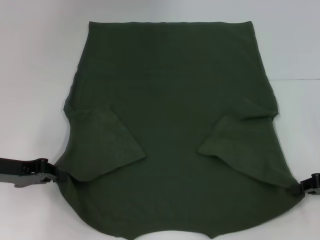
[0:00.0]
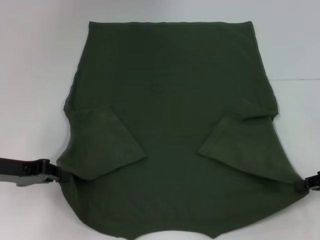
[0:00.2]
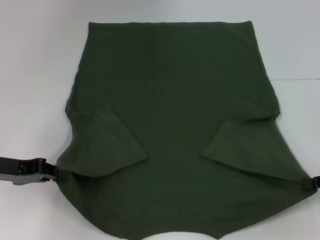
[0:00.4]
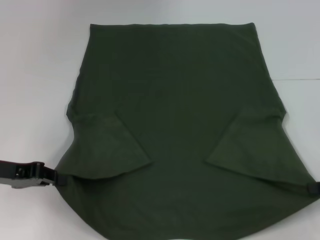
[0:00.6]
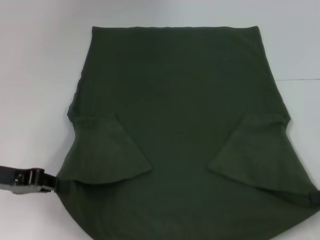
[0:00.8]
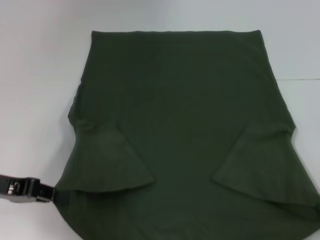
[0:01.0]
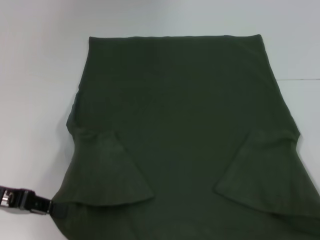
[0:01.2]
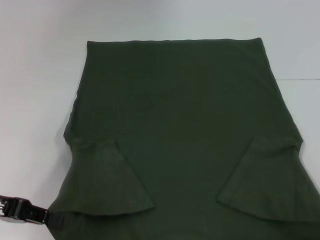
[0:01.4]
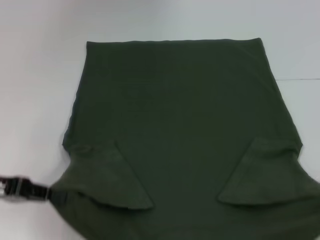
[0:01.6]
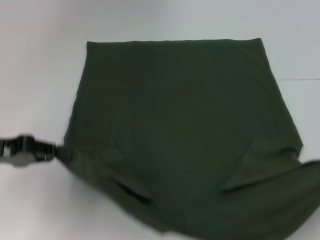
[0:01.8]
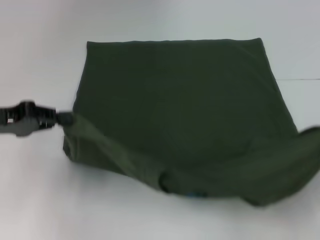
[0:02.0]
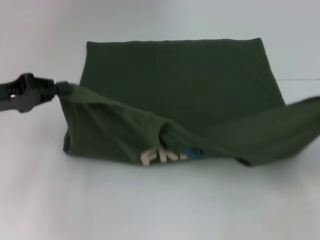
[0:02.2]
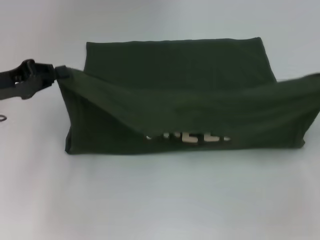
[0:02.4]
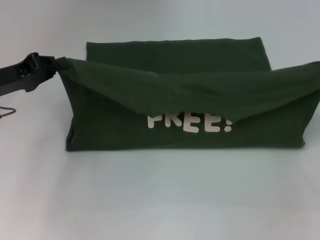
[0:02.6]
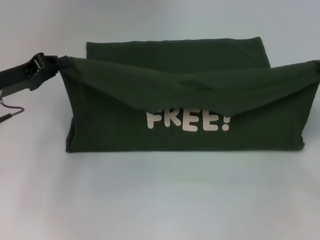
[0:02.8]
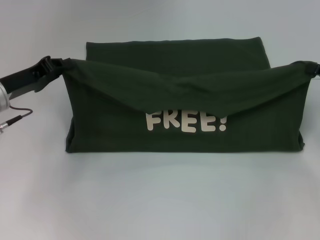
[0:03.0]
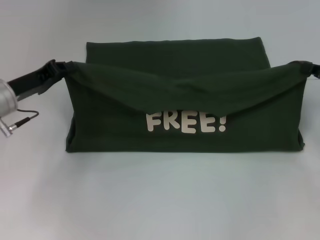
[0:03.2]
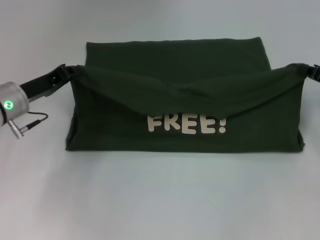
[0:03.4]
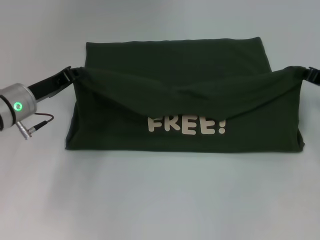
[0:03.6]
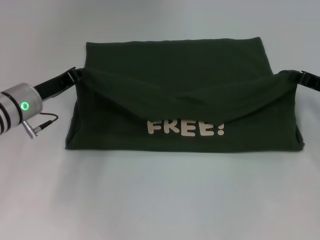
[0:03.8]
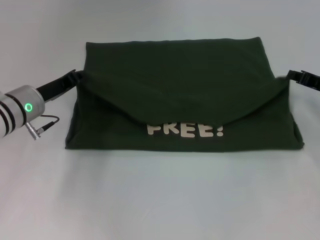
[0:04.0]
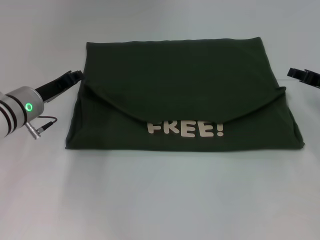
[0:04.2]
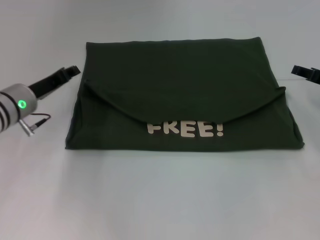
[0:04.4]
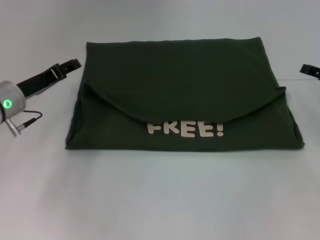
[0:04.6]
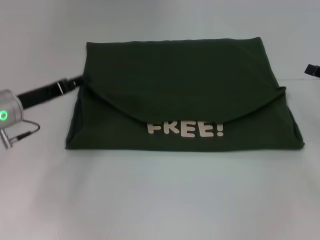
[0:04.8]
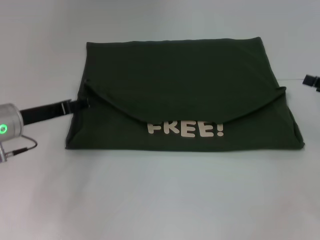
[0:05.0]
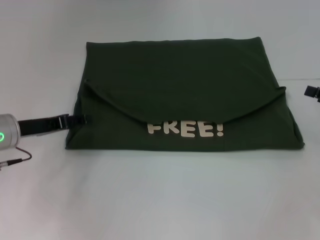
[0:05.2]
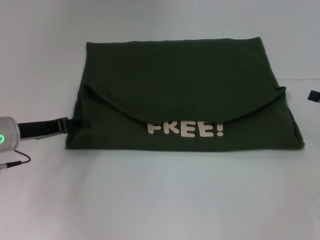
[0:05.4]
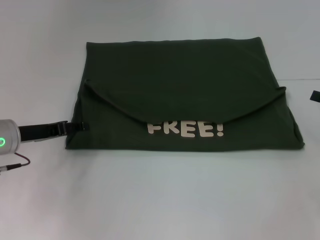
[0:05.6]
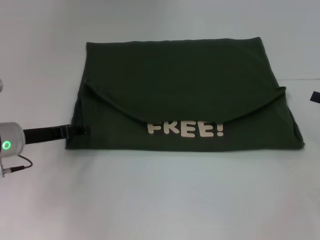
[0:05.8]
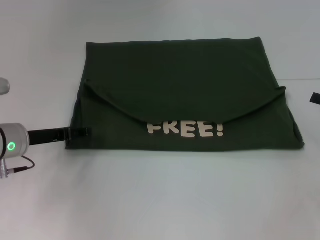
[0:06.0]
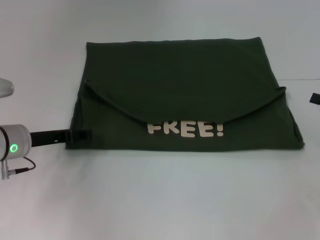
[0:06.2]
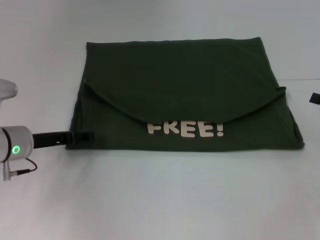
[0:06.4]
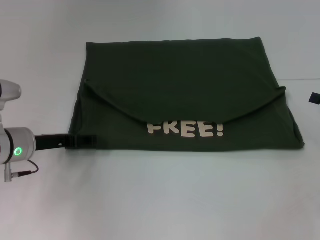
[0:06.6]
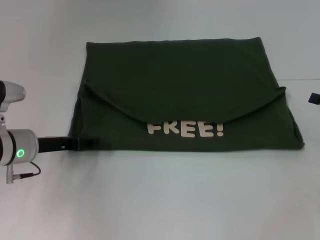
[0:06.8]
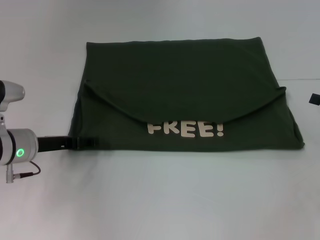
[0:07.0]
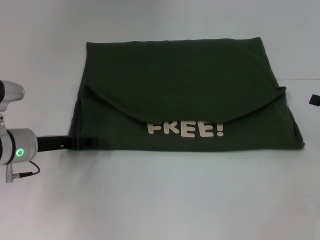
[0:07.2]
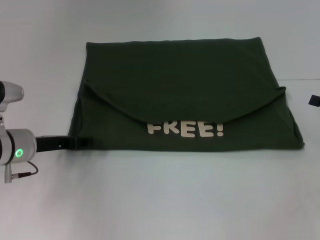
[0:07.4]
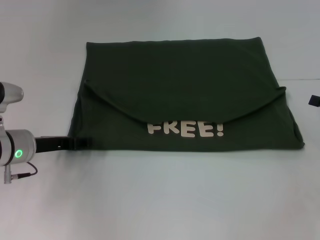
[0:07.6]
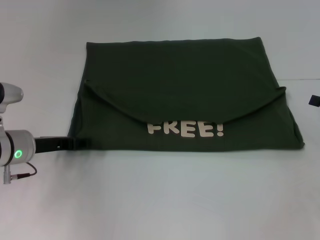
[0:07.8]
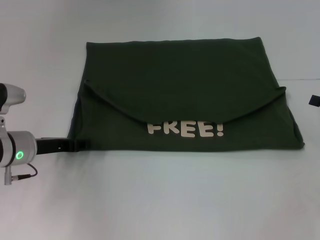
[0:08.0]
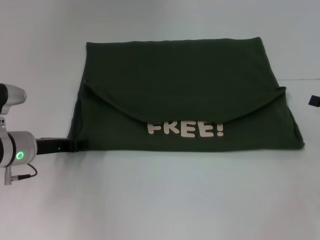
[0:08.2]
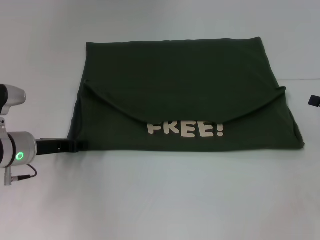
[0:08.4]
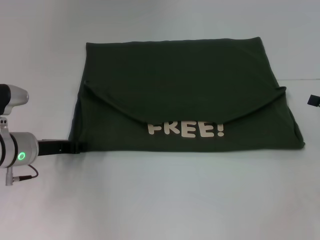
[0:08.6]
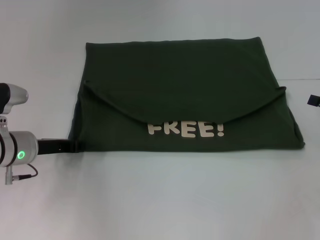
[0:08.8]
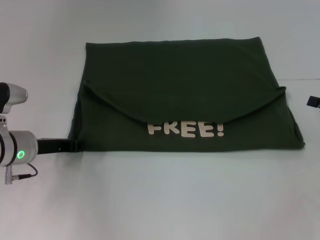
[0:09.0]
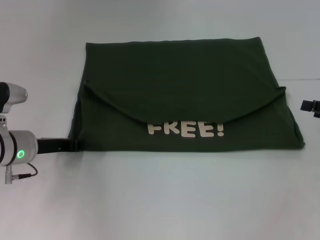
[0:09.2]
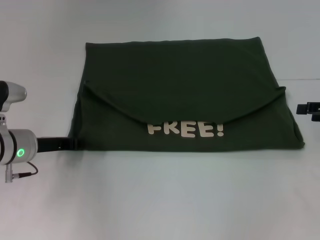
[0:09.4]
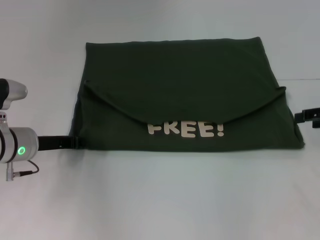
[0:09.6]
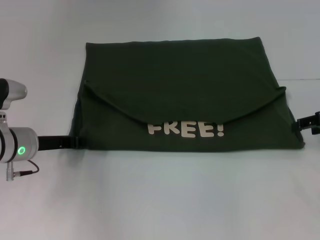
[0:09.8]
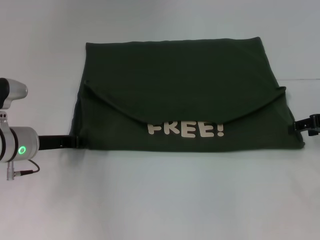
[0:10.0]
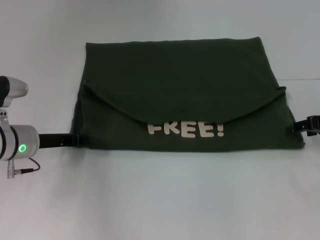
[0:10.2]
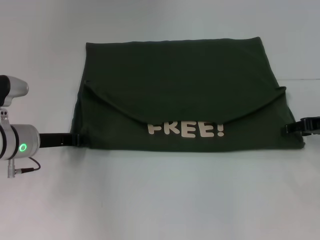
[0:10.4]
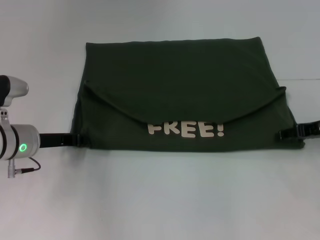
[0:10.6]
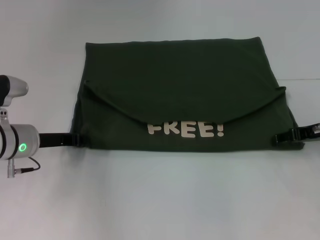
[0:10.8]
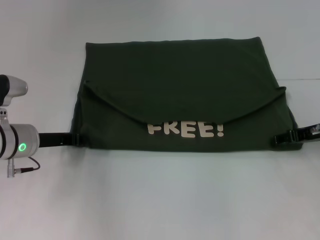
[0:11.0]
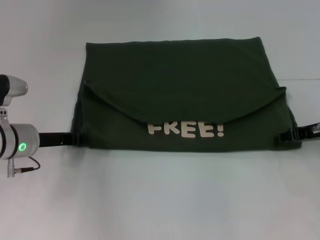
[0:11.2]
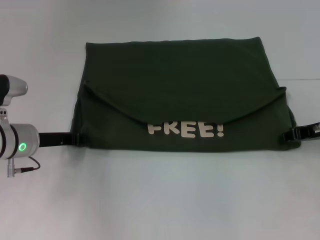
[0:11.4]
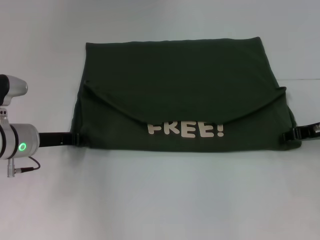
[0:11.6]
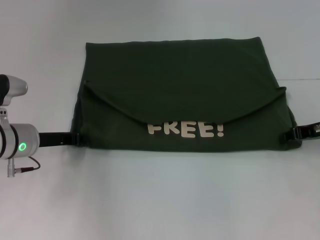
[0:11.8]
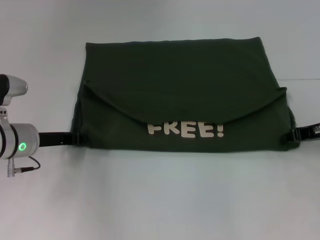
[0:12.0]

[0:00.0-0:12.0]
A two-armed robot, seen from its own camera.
Step, 0:00.0 to 0:04.0: Fold the clothes with your left hand.
Step, 0:00.0 to 0:04.0: Fold the clothes with your right hand.
0:00.0 to 0:01.6: The left gripper moves approximately 5 cm, while the right gripper goes roughly 10 cm backward and to the right.
0:01.6 to 0:03.0: The two grippers go about 10 cm forward.
0:03.0 to 0:04.4: The left gripper changes place by roughly 5 cm; the right gripper opens.
0:04.4 to 0:06.0: The left gripper opens.
0:06.0 to 0:07.6: There are only small adjustments of the grippers.
0:07.6 to 0:09.0: The left gripper closes.
0:09.0 to 0:10.4: The right gripper is displaced forward and to the left by approximately 10 cm.
0:10.4 to 0:12.0: The right gripper closes its fingers.

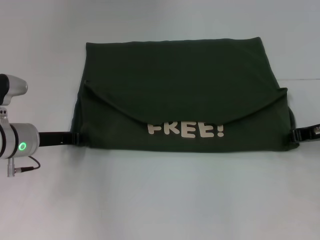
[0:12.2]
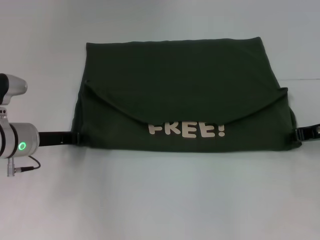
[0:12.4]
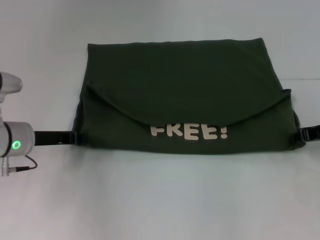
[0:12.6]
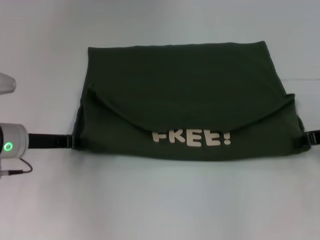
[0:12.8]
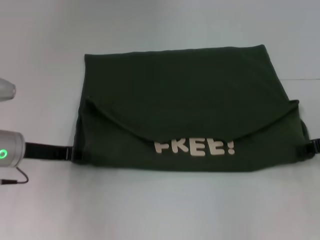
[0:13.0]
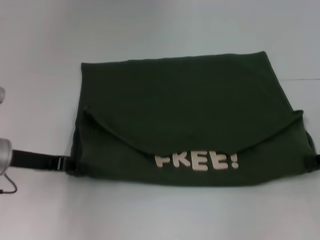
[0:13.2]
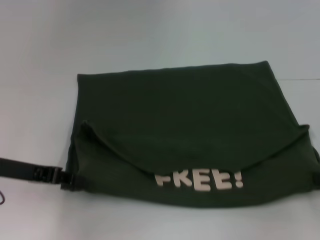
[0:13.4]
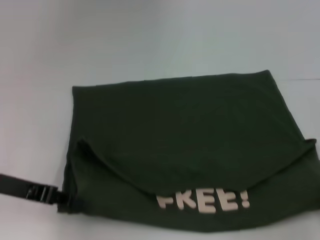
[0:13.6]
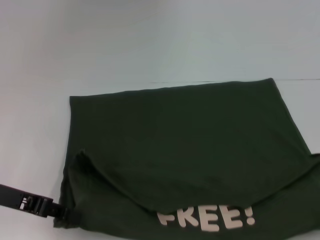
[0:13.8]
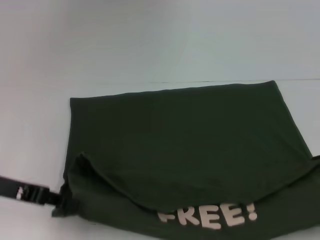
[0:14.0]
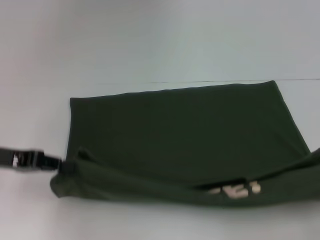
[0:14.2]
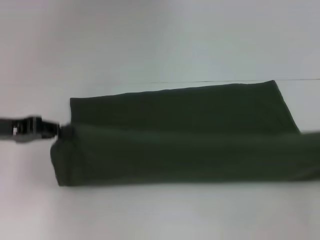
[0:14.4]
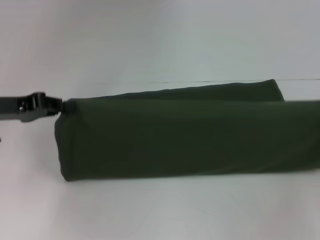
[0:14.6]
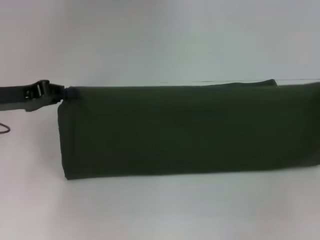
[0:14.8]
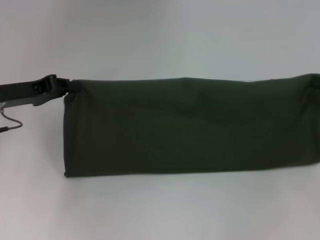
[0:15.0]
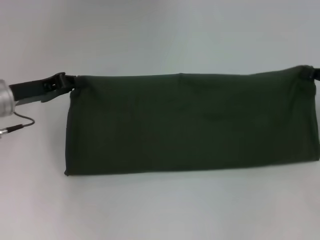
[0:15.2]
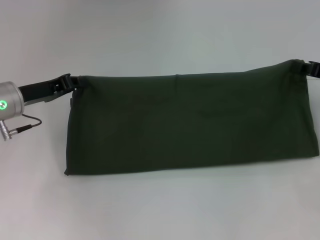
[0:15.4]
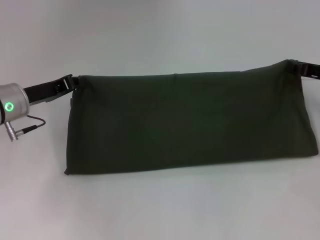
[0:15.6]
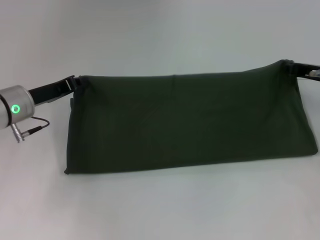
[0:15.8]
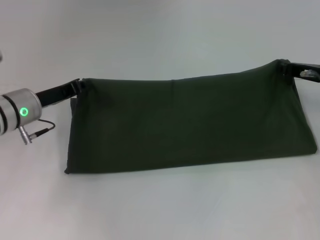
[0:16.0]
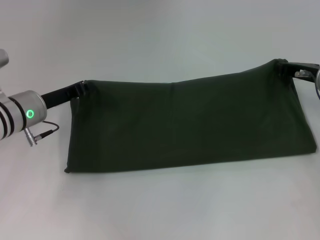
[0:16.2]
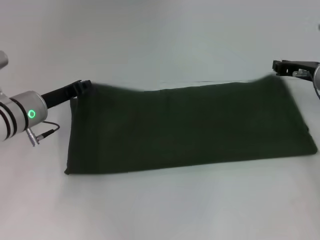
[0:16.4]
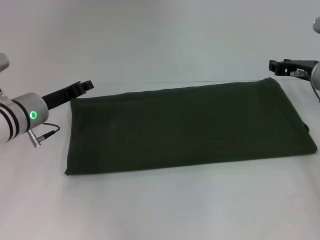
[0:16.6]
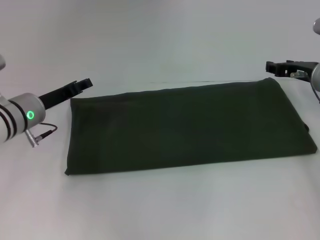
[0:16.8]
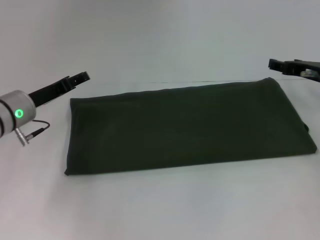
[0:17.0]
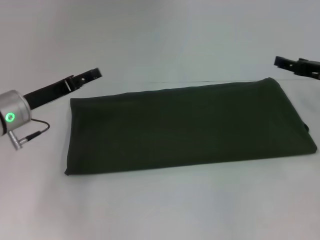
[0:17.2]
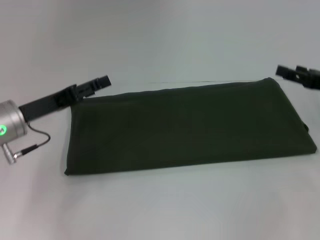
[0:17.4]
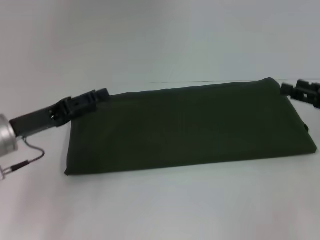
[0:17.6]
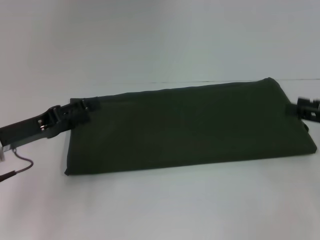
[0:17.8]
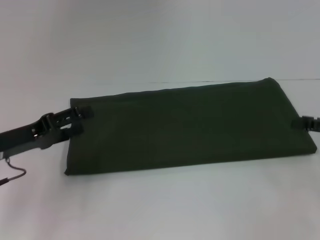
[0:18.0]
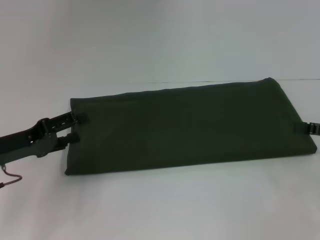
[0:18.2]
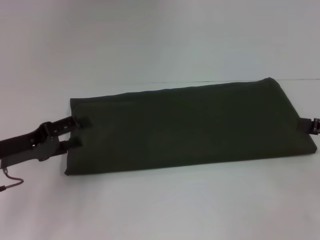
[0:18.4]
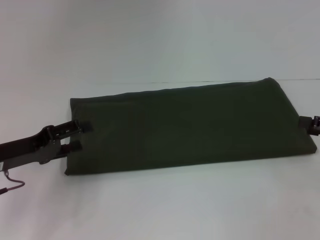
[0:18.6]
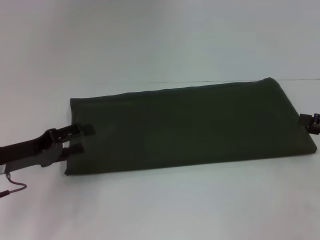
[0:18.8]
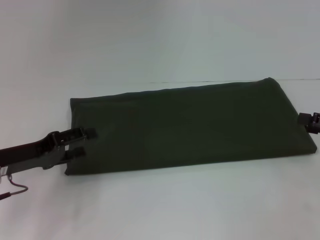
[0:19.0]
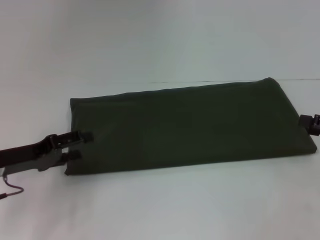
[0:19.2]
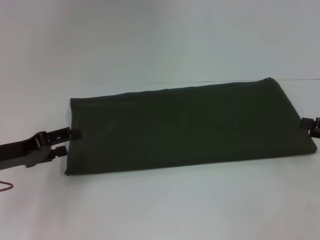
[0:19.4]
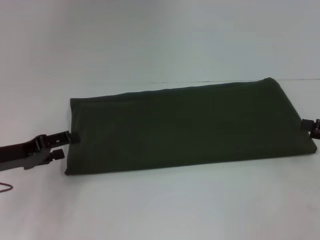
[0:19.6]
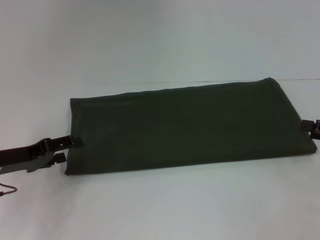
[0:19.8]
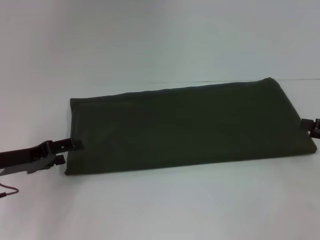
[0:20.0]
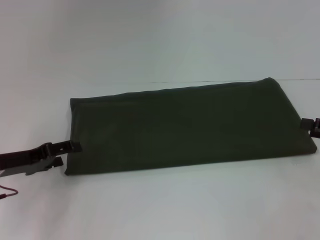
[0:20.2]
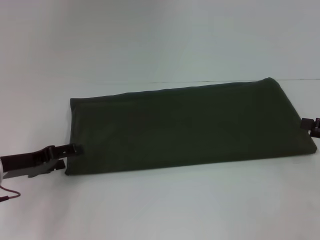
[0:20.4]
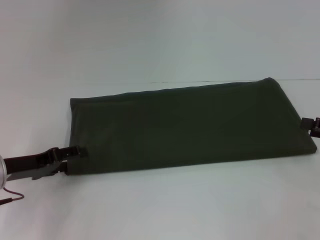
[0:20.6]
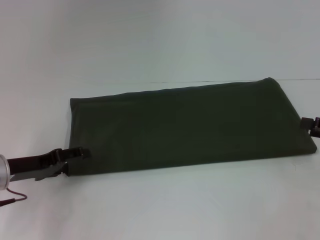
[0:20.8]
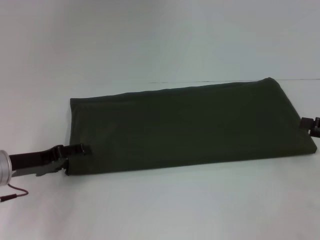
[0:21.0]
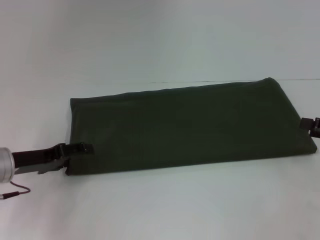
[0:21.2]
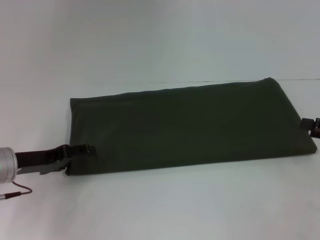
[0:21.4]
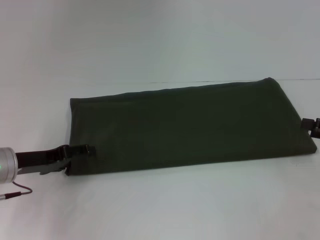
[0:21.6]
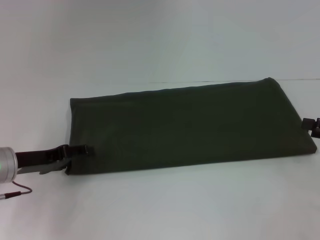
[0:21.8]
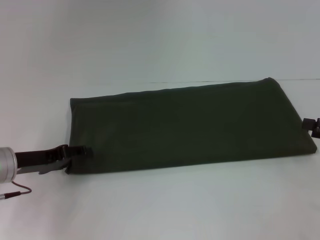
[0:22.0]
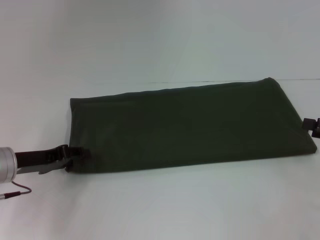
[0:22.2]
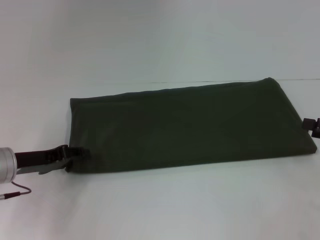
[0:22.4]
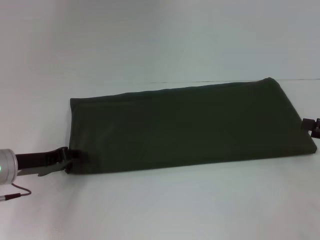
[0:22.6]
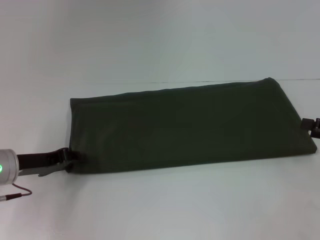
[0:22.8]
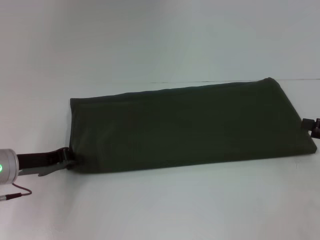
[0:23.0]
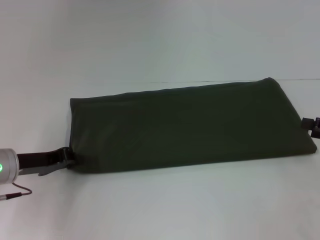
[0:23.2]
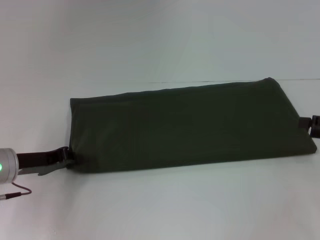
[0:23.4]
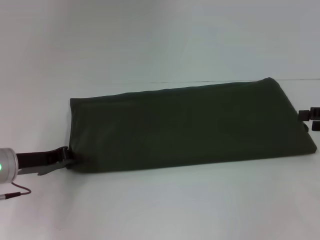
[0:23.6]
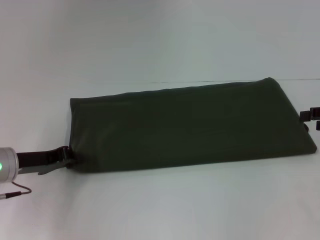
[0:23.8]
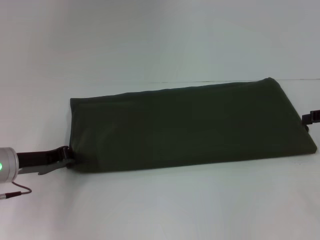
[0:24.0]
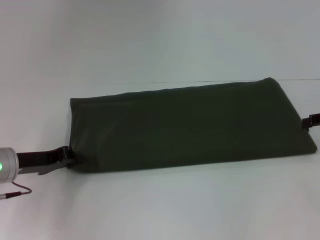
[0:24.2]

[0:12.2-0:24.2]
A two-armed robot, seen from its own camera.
Step, 0:14.0 to 0:16.4: Fold the clothes with your left hand.
Step, 0:14.0 to 0:16.4: Fold the clothes with your right hand.
0:12.2 to 0:13.8: The right gripper heads backward and to the right, covering roughly 20 cm. The left gripper goes roughly 10 cm backward and upward.
0:13.8 to 0:15.2: The right gripper travels forward by roughly 15 cm. Meanwhile the left gripper is displaced forward by approximately 10 cm.
0:15.2 to 0:16.6: The left gripper ends up roughly 5 cm from where it was; the right gripper shifts about 10 cm to the left and forward.
0:16.6 to 0:18.2: The left gripper goes approximately 10 cm backward and to the left, and opens. Meanwhile the right gripper travels backward and to the right by some 15 cm, and opens its fingers.
0:18.2 to 0:19.8: The grippers stay close to where they were, moving slightly.
0:19.8 to 0:21.2: The grippers stay close to where they were, moving slightly.
0:21.2 to 0:22.6: The left gripper closes its fingers.
0:22.6 to 0:24.2: The left gripper closes its fingers.
